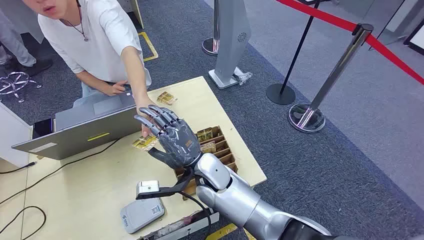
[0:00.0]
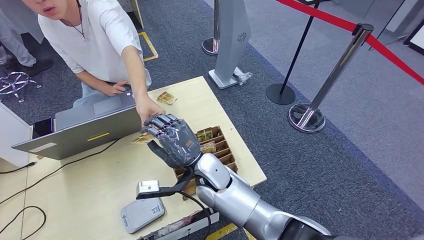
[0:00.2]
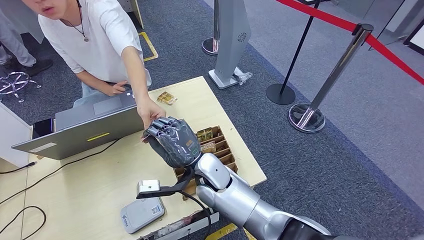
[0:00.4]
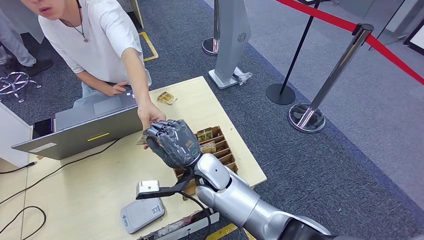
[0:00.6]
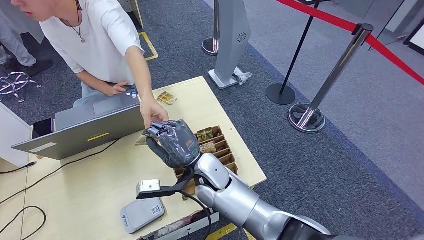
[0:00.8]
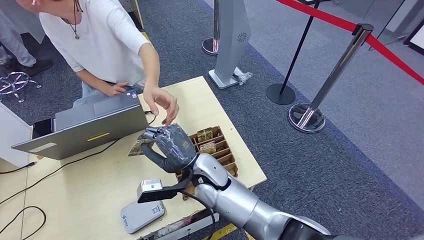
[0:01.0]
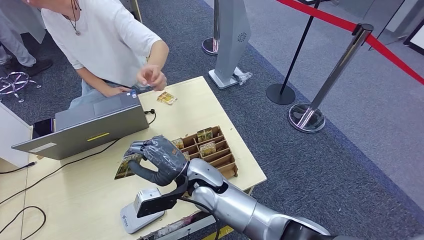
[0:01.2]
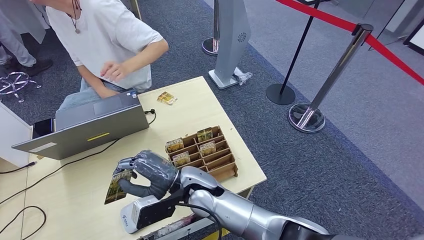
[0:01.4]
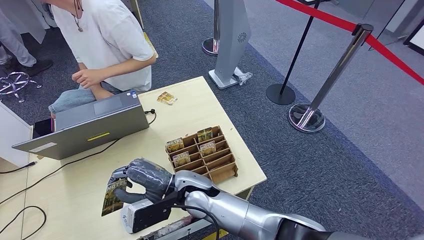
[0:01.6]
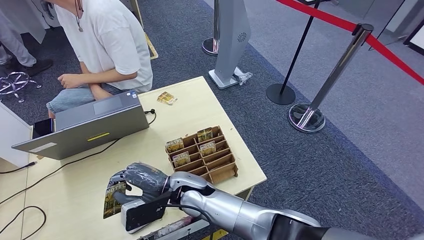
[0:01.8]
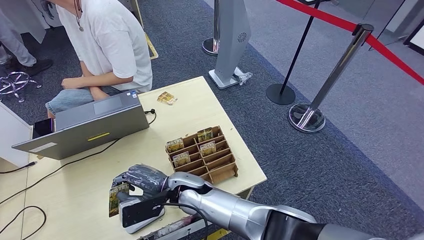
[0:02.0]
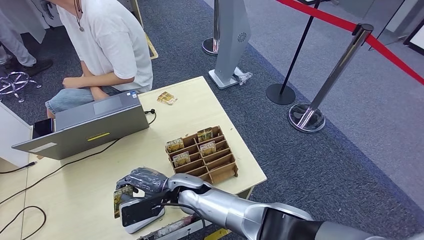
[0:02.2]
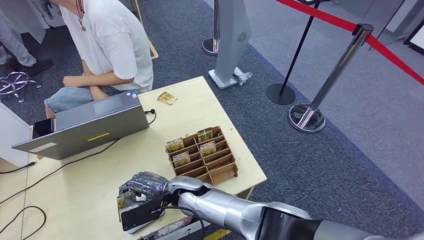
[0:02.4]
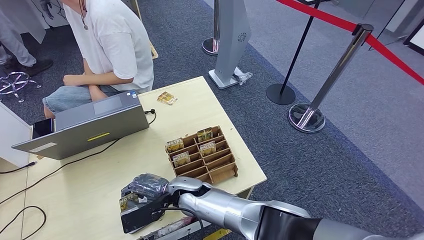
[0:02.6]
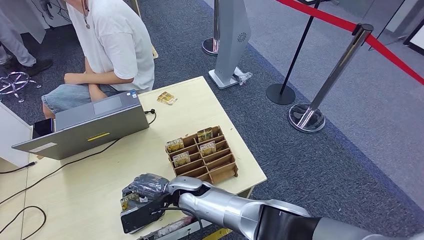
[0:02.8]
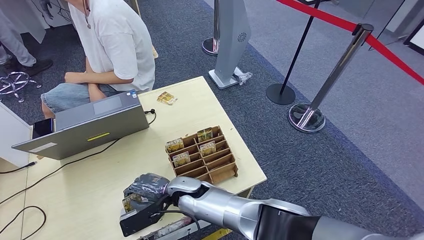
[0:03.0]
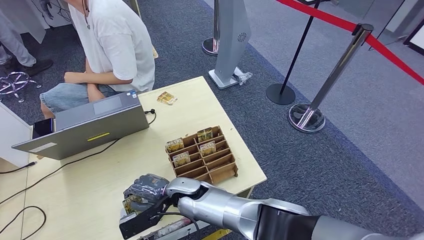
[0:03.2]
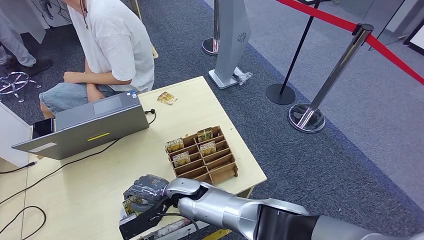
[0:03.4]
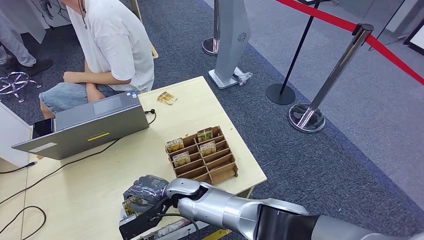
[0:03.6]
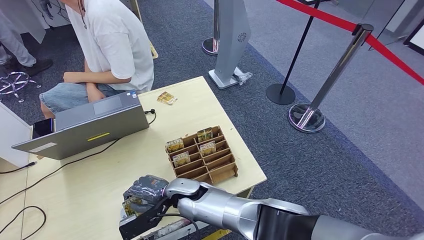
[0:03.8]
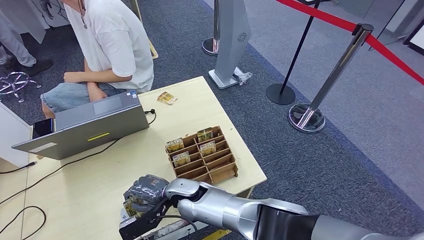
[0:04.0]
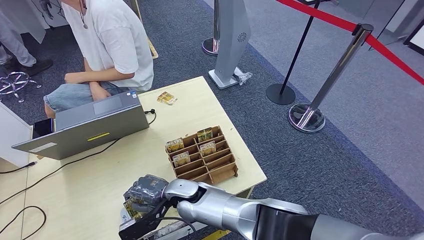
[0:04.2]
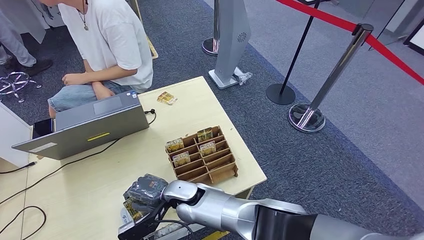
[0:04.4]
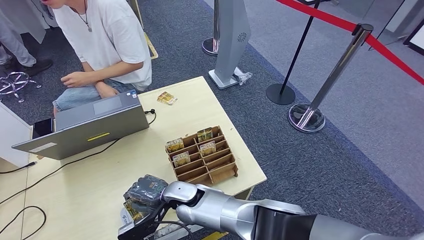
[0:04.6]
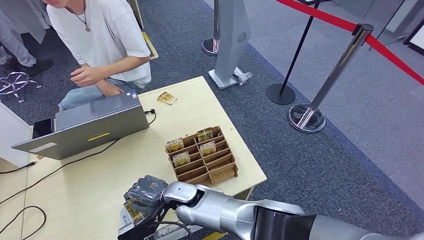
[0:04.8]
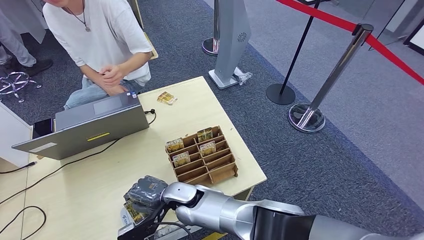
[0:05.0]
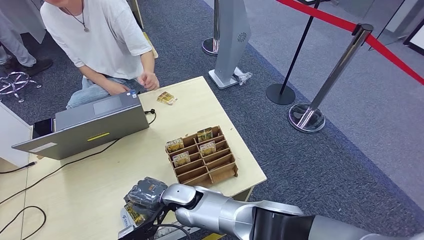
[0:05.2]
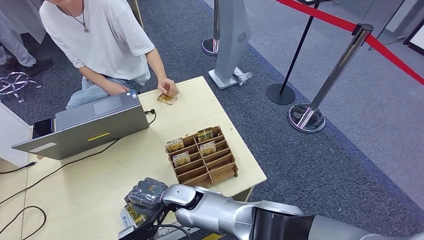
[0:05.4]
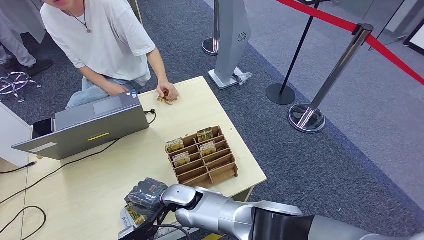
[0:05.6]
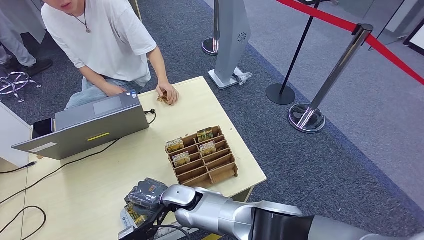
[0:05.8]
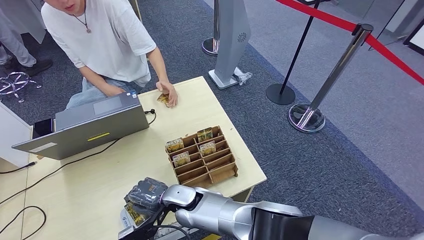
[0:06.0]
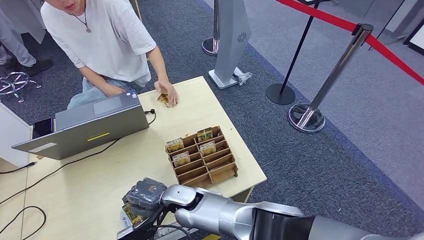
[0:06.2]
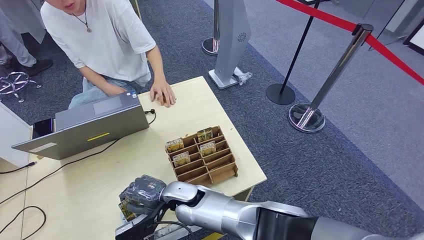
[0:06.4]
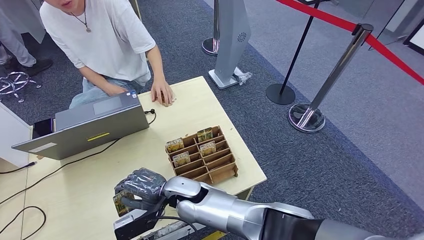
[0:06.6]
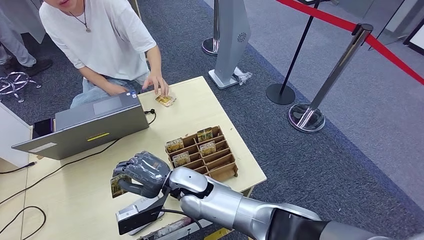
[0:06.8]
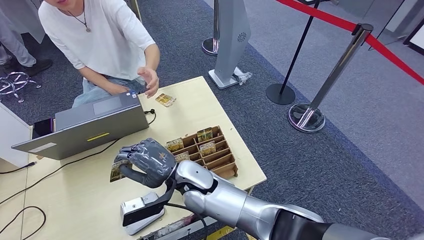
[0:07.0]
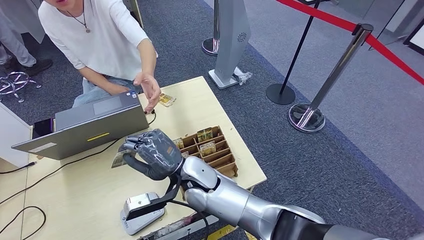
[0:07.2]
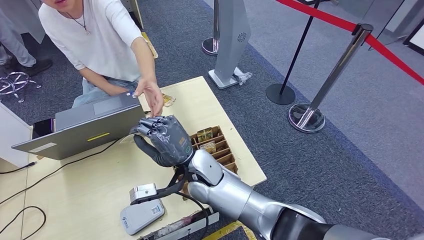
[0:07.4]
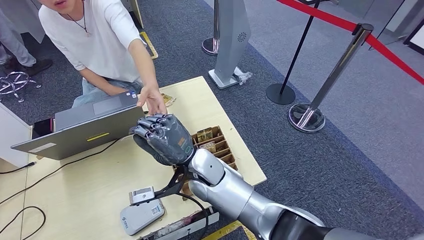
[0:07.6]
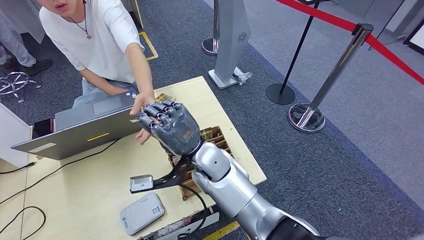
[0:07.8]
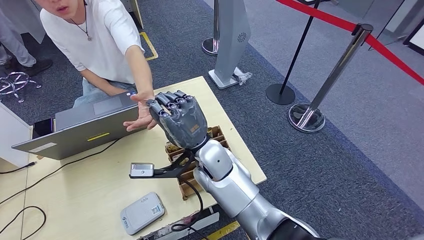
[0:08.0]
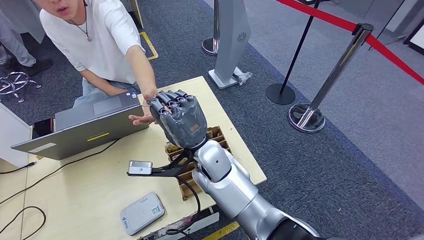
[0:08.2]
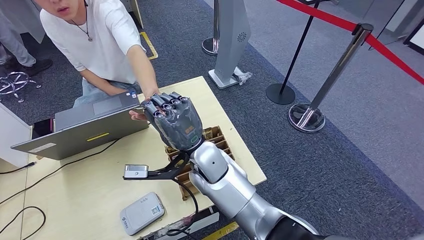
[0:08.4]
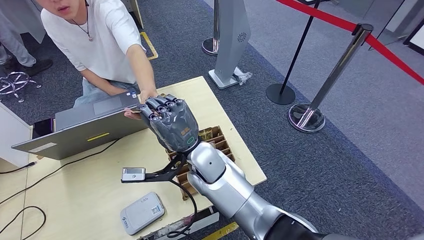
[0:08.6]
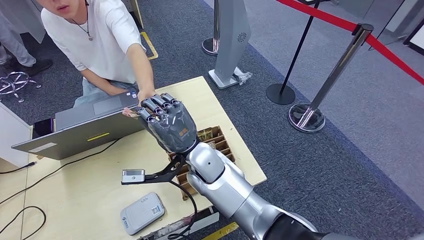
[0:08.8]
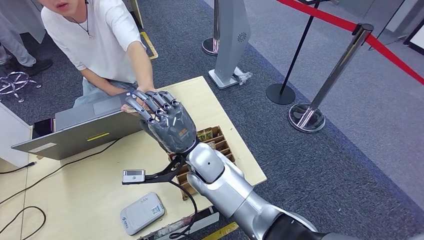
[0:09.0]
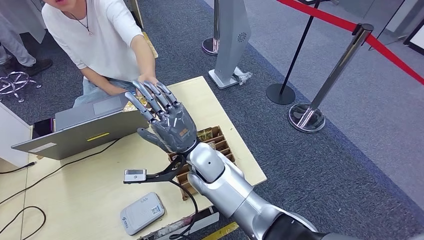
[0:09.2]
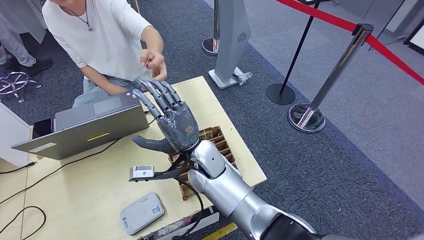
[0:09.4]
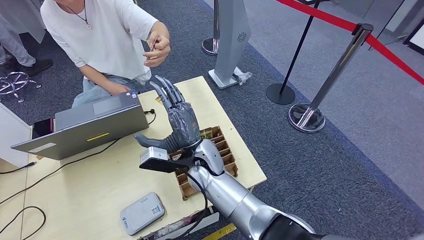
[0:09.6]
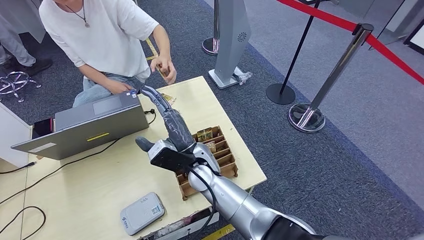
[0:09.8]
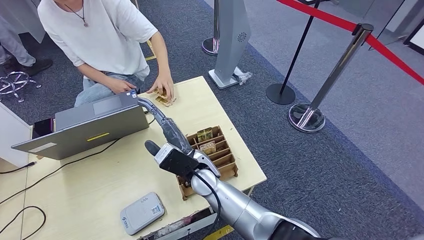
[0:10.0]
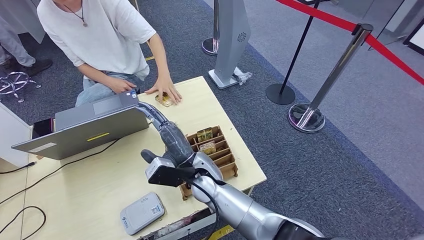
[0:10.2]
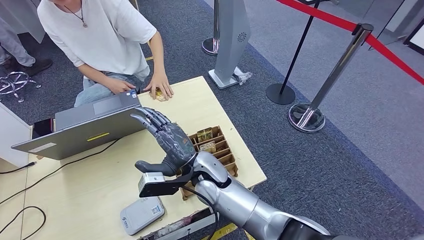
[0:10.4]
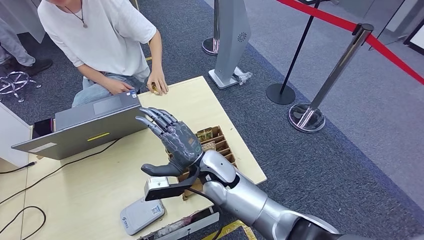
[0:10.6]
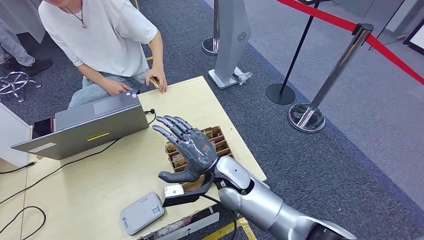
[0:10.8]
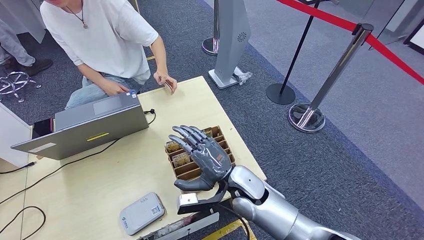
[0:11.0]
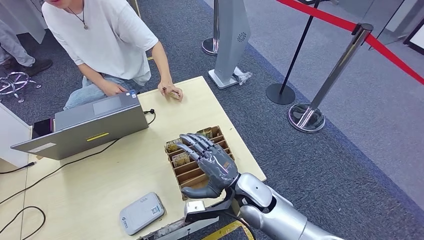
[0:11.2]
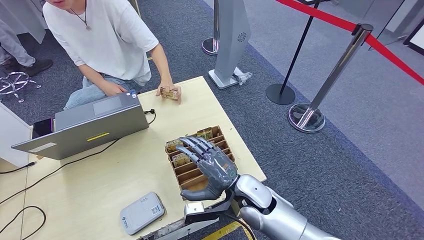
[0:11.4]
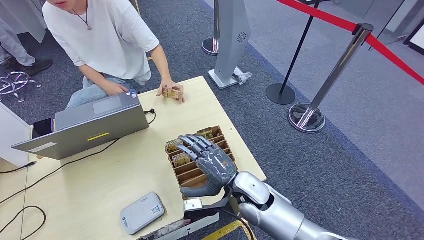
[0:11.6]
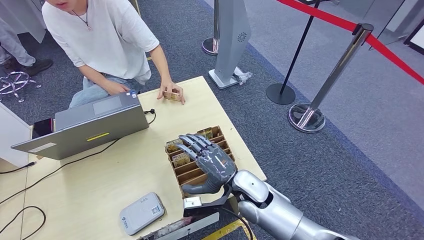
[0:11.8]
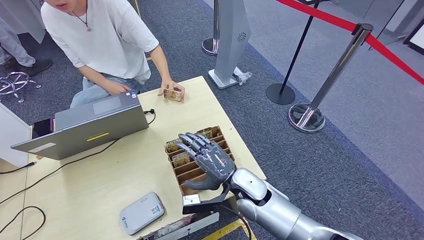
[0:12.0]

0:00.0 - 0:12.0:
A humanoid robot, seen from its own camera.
Step, 0:00.0 - 0:01.0: Take the ID card from the person's hand.
Step, 0:01.2 - 0:04.2: Place the ID card on the card reader.
Step, 0:04.6 - 0:08.6: Hand the ID card to the person.
0:01.6 - 0:03.0: The right hand moves downward, about 5 cm.
0:03.0 - 0:04.4: The hands make only small movements.
0:04.4 - 0:06.0: The two hands keep their place.
0:06.0 - 0:07.6: The right hand shifts approximately 15 cm upward and to the right.
0:10.4 - 0:12.0: The right hand shifts roughly 15 cm to the right, backward and downward.

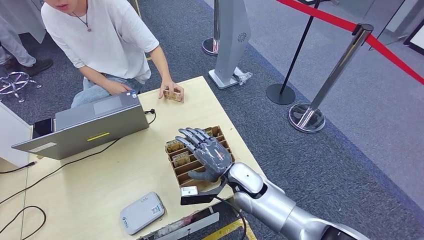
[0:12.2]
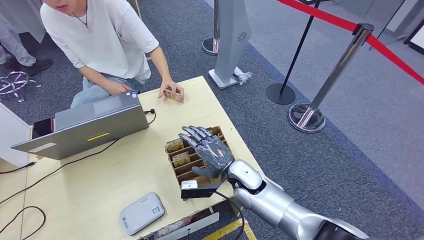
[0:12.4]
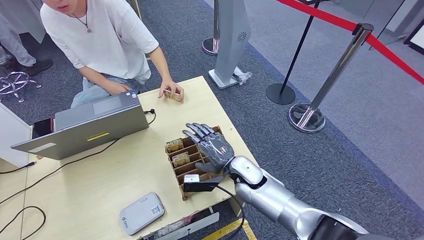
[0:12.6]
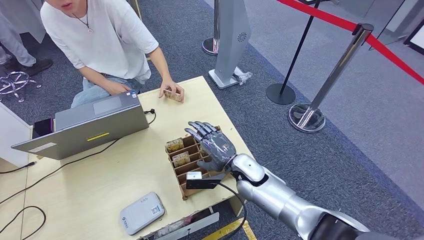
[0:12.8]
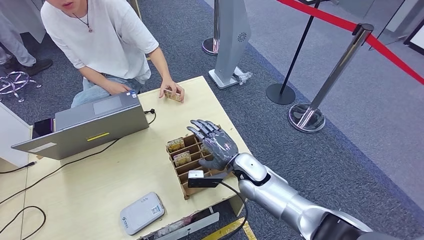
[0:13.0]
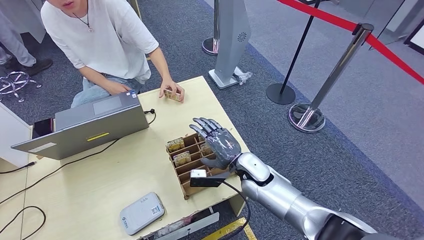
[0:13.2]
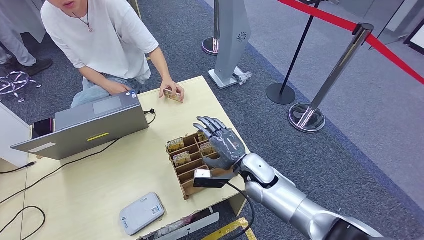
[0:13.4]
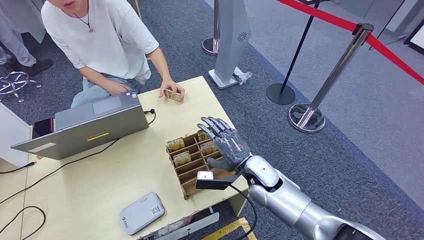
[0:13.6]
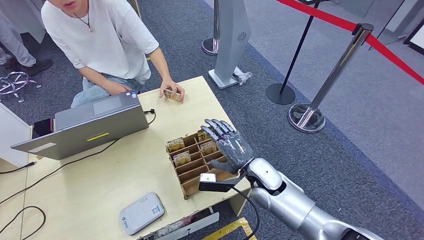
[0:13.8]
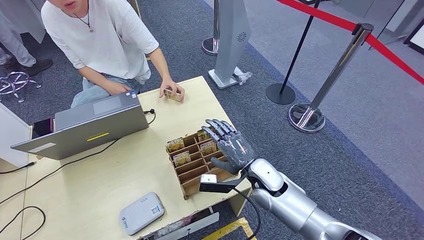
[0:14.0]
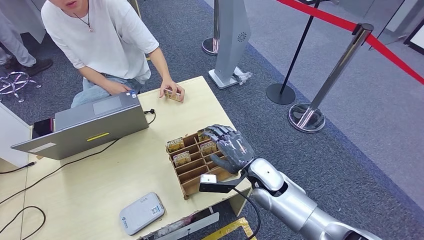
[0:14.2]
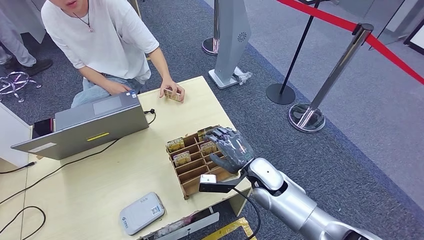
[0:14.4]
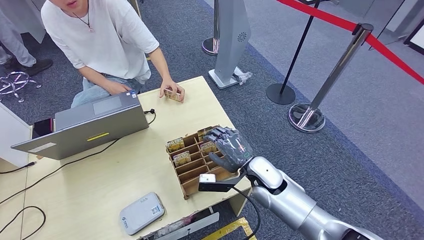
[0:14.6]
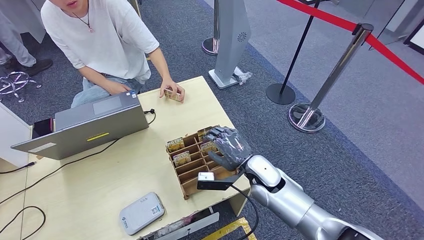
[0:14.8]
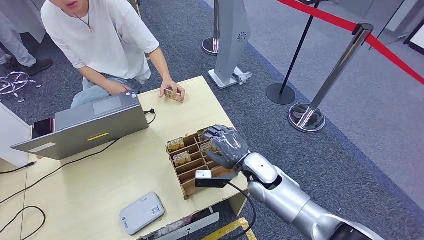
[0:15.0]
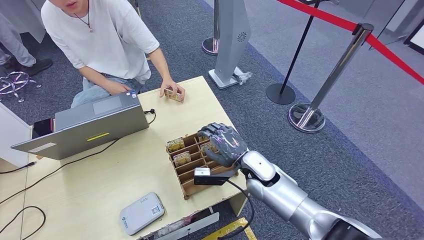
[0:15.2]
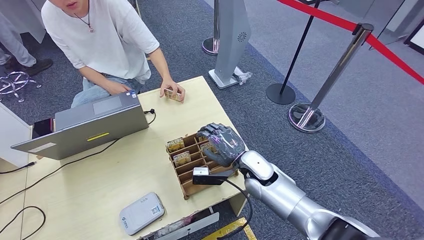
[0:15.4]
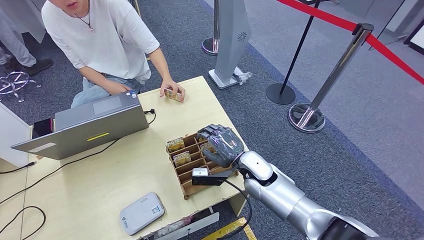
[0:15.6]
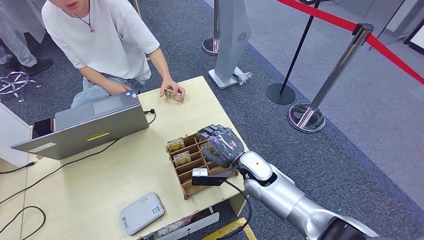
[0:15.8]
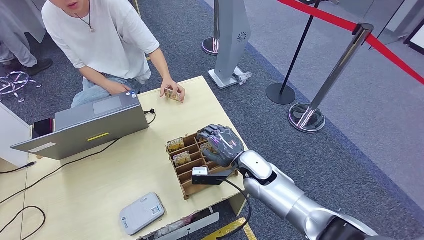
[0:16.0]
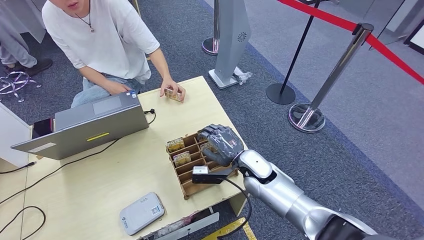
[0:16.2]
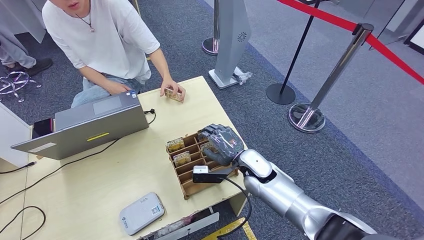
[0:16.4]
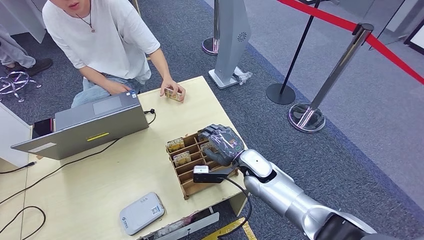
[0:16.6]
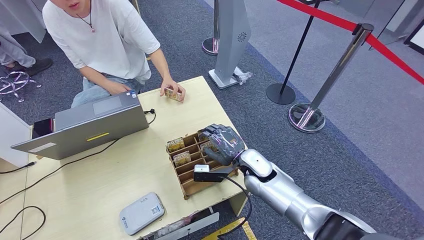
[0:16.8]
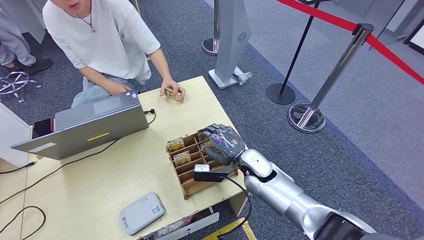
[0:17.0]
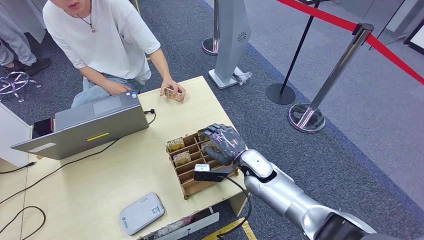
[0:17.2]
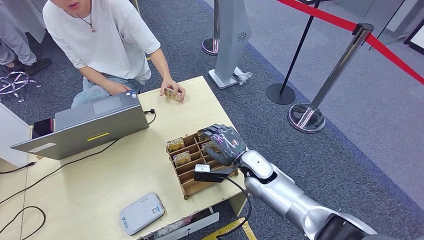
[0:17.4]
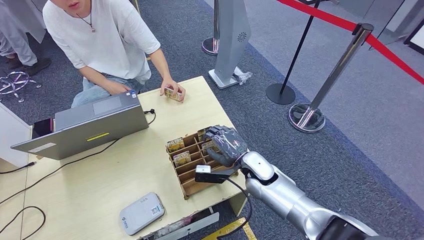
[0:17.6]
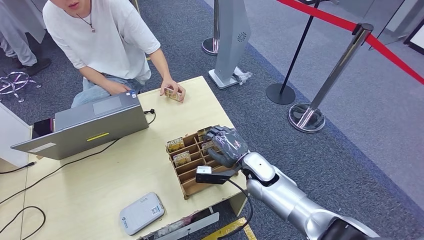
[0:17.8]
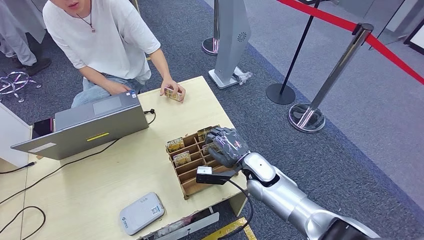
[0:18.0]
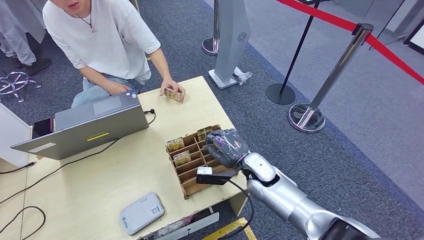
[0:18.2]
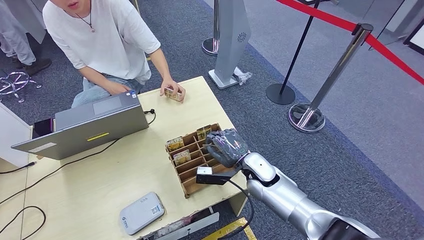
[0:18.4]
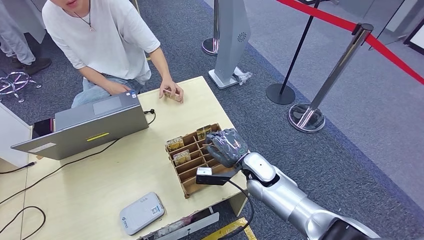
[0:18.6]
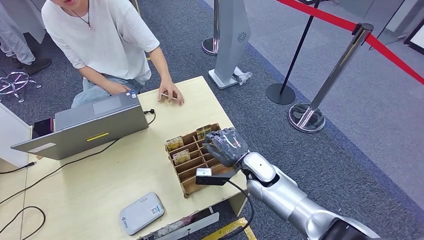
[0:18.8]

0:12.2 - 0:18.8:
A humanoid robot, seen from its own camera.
Step, 0:12.2 - 0:18.4: Pick up the room key from the key card box.
0:12.2 - 0:13.8: The right hand is displaced to the right by approximately 5 cm.
0:13.8 - 0:17.2: The hands move only a little.
0:17.2 - 0:18.8: Neither hand changes place.
